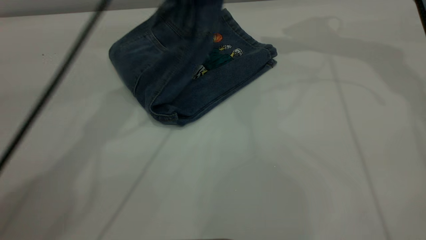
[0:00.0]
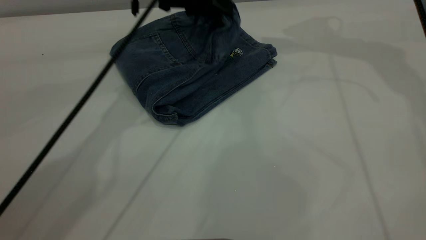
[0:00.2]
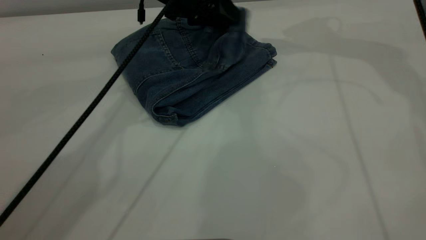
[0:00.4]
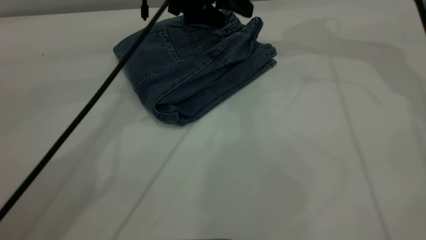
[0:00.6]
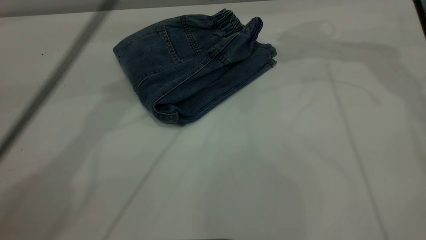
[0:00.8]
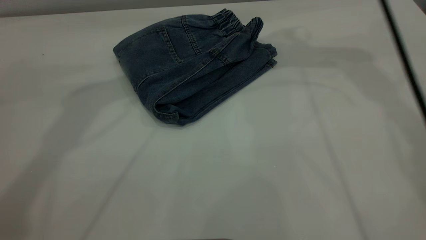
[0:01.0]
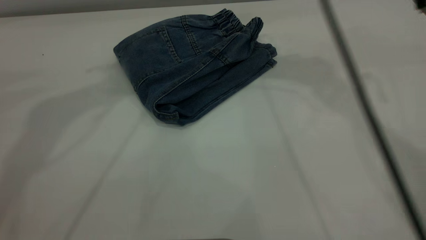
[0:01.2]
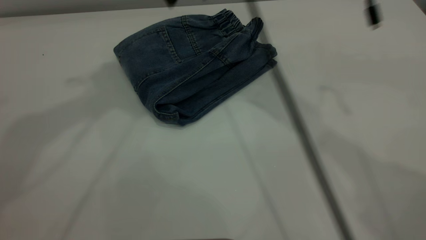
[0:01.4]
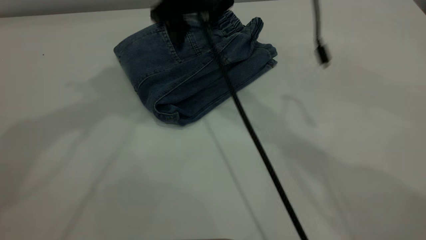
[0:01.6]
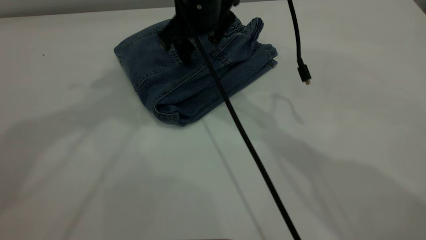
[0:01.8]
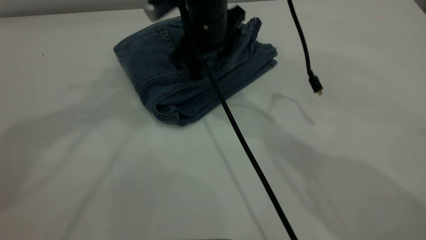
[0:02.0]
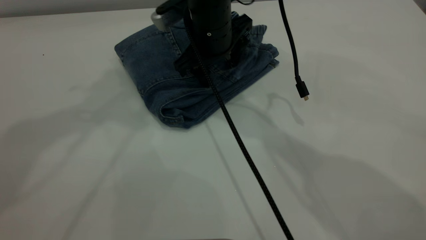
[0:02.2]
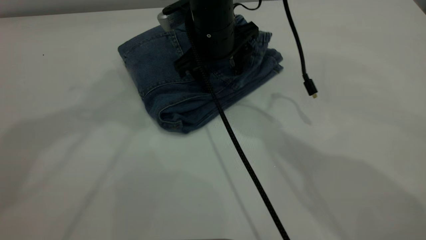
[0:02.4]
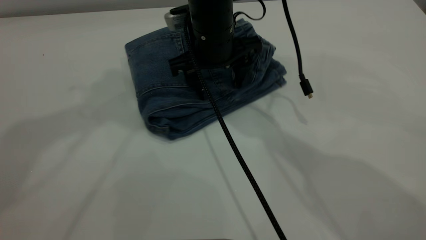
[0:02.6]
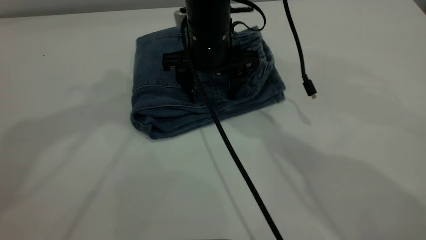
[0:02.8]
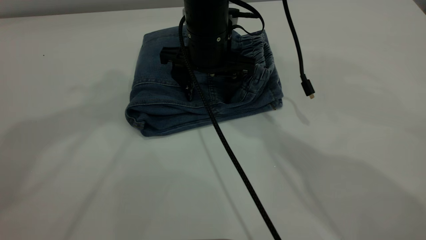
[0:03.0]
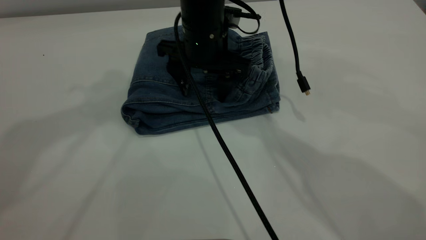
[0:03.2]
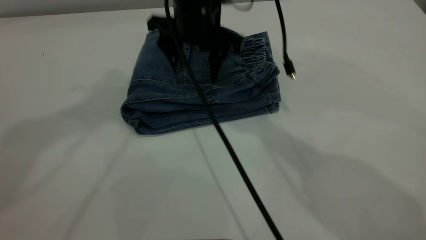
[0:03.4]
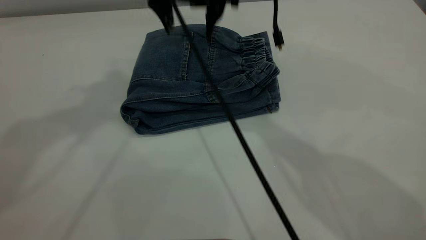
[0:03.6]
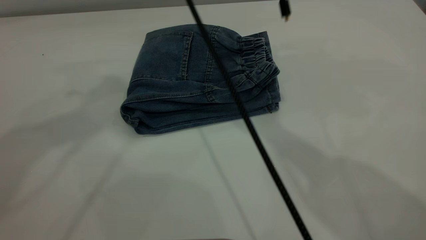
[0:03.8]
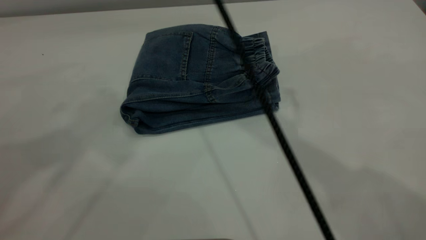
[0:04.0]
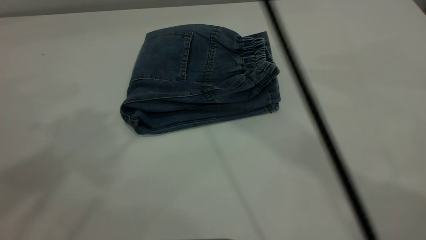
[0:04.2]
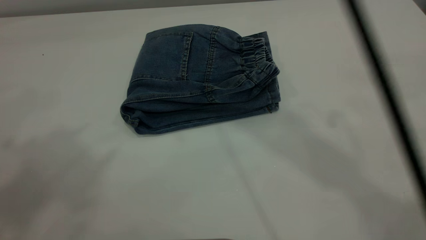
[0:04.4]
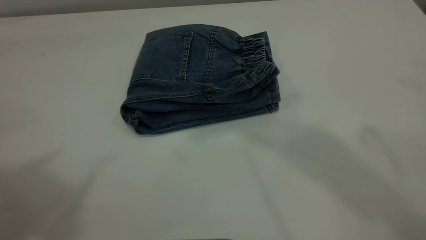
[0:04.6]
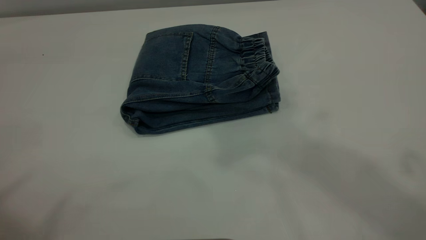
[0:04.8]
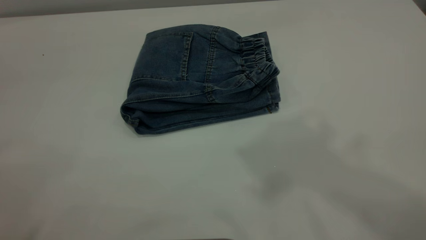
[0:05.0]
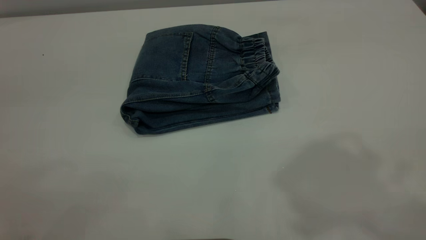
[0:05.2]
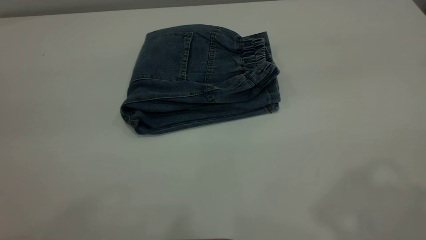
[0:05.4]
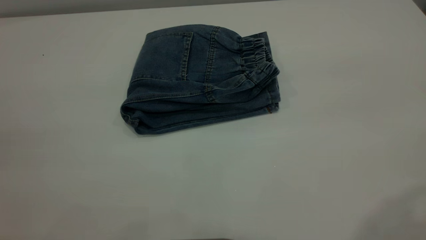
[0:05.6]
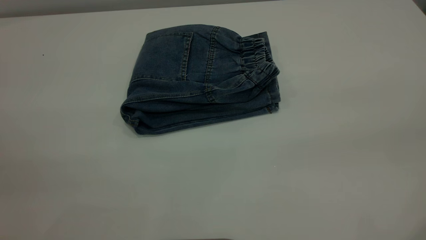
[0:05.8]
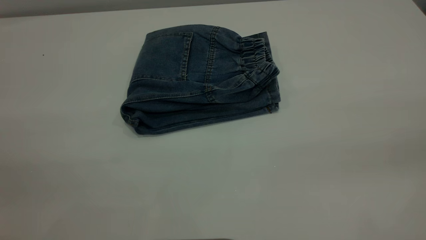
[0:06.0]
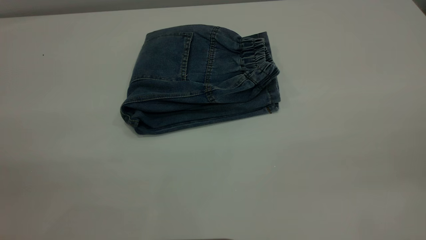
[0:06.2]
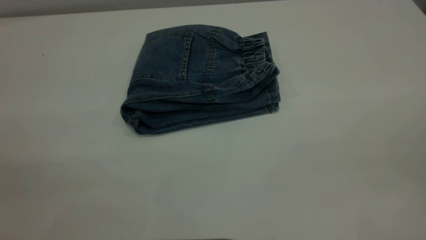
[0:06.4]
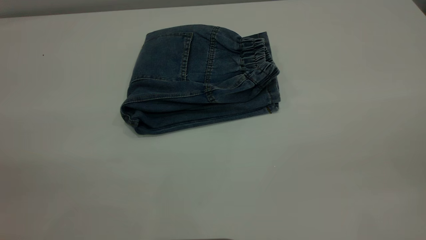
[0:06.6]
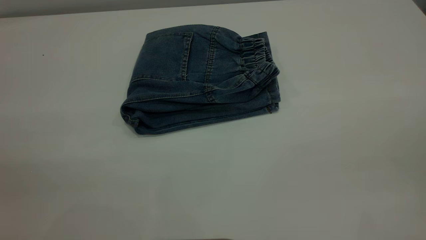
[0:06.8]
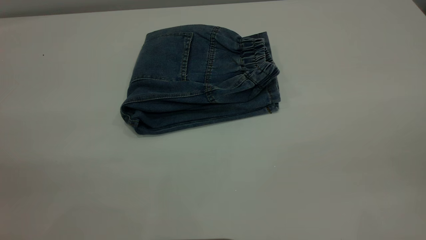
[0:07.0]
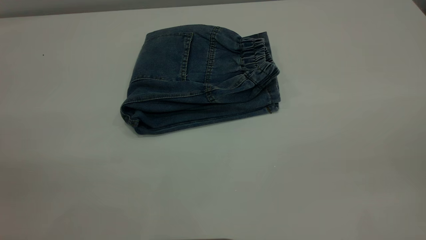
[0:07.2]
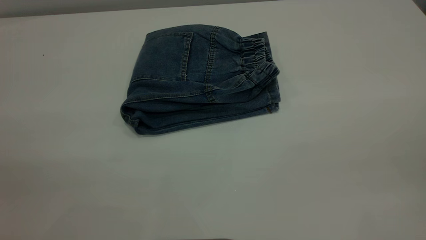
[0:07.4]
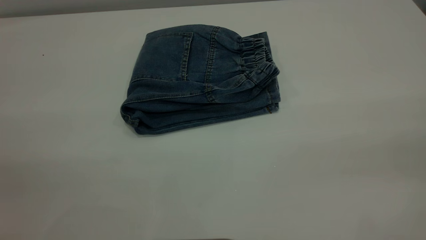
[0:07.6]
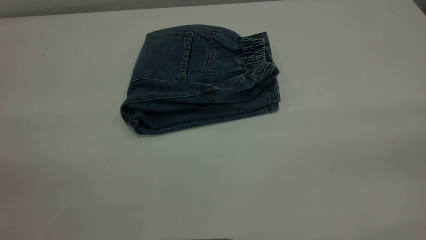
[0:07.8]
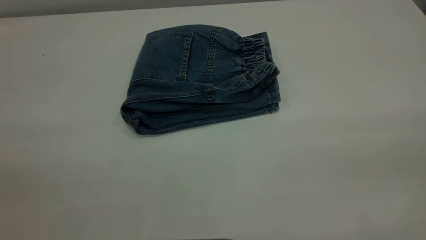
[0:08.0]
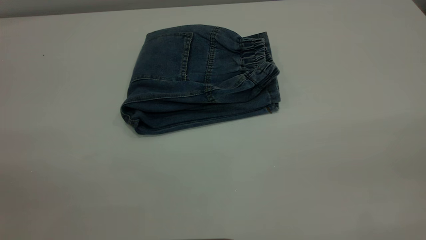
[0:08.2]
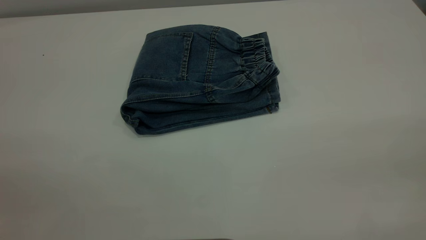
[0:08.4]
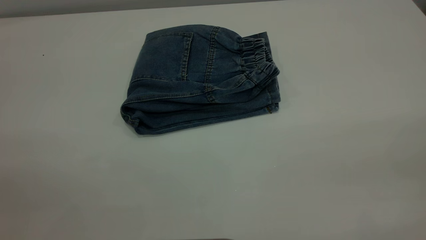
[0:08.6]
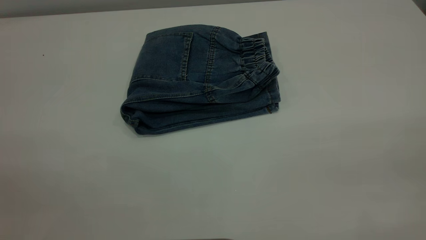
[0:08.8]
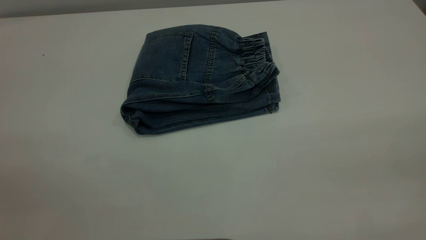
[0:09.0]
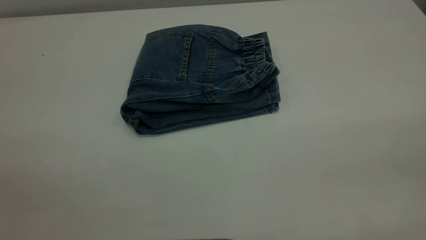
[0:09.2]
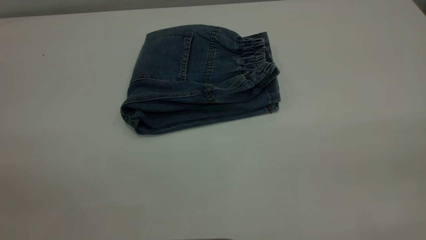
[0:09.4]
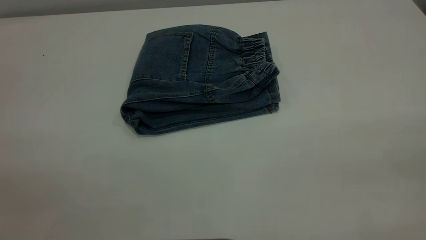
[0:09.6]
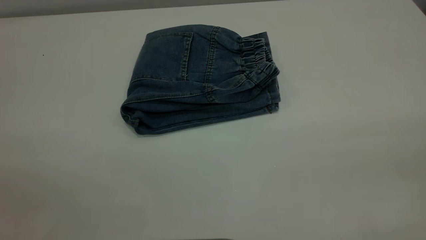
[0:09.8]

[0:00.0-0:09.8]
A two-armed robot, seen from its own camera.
0:00.0 to 0:01.4: The right gripper heads to the left, covering about 20 cm. The left gripper is displaced upward and to the left by approximately 25 cm, and opens.
0:01.4 to 0:02.8: The right gripper is displaced downward by approximately 10 cm.
0:02.8 to 0:04.2: The left gripper travels backward and upward by about 10 cm. Meanwhile the right gripper shifts approximately 30 cm upward.
0:04.2 to 0:05.6: The right gripper is displaced backward and to the right by approximately 35 cm.
0:08.4 to 0:09.8: The two grippers keep their place.
